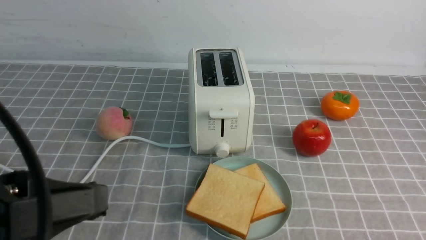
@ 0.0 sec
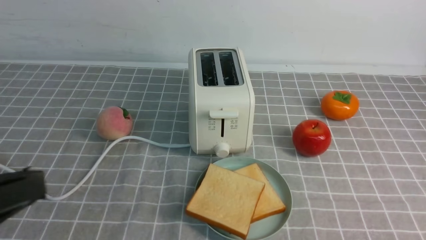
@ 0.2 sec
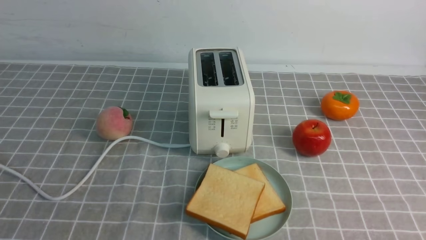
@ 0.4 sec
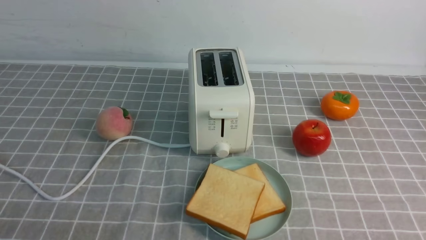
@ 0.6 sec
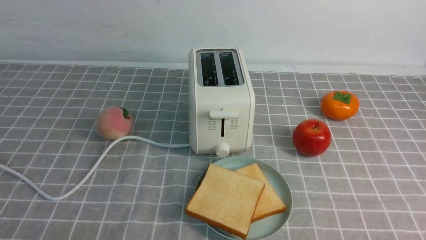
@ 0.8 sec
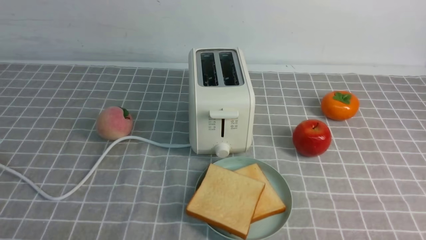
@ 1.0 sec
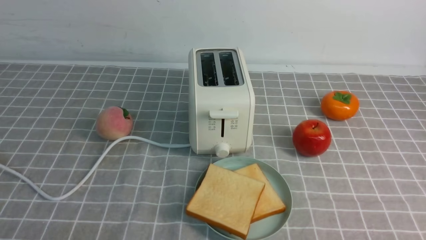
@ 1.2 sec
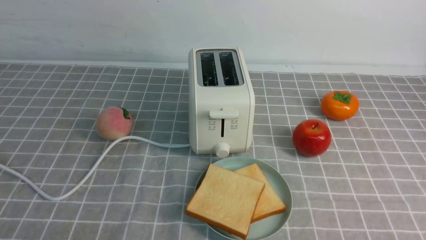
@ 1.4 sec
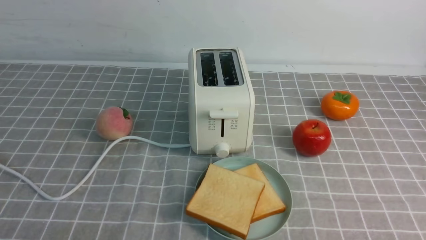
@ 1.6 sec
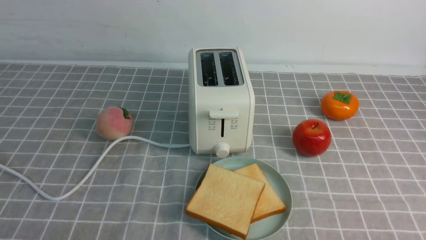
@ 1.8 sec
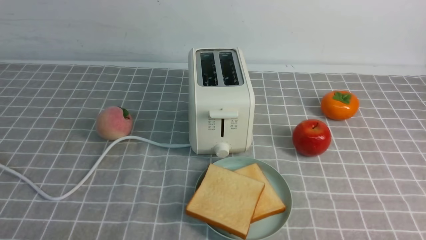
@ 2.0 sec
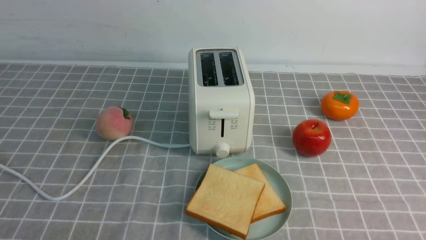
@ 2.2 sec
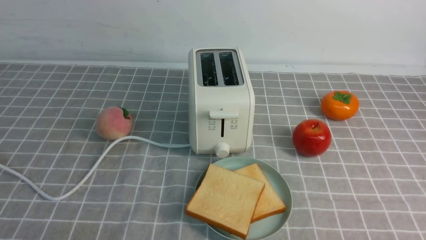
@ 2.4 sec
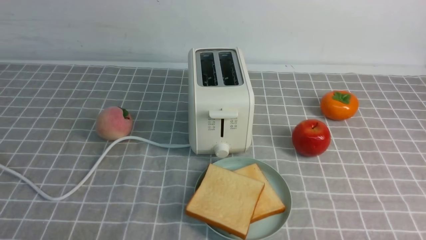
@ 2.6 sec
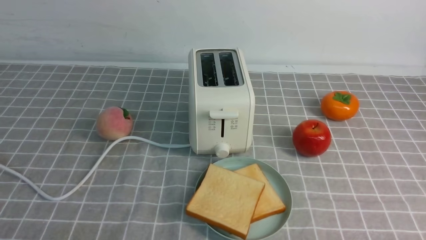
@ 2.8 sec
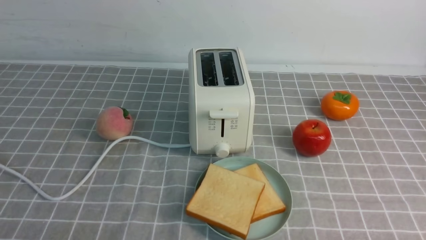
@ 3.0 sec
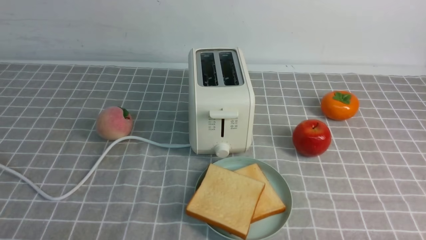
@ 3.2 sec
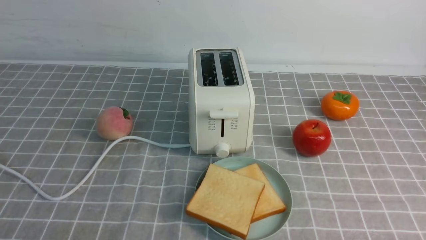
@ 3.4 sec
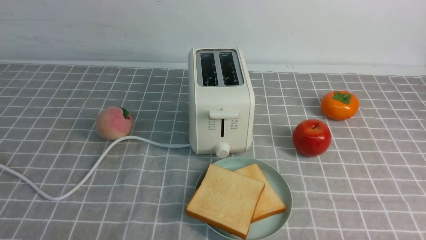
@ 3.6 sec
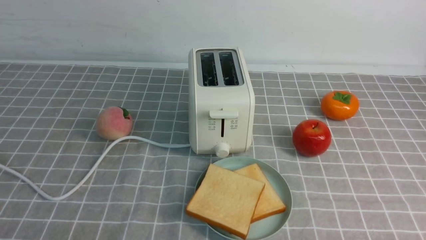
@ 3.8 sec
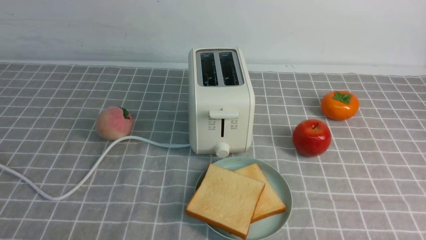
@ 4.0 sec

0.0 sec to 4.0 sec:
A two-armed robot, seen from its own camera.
Task of the whole recording: take toasted bread from bread machine on grey coffee table place on plate.
0.0 sec to 1.4 sec: The left gripper moves downward, some 20 cm.
